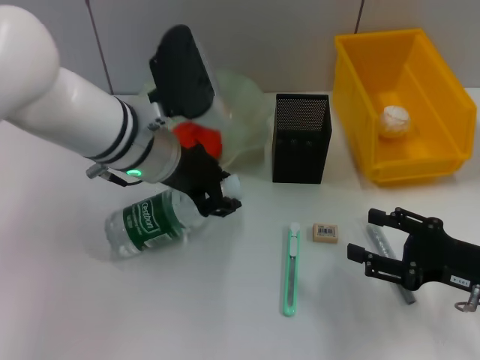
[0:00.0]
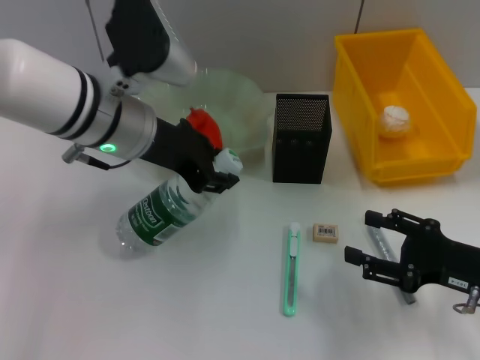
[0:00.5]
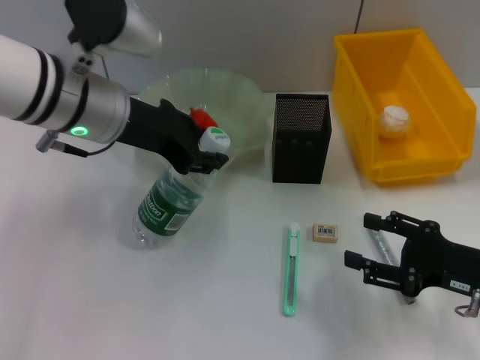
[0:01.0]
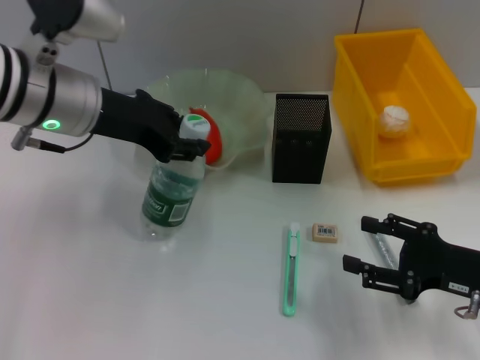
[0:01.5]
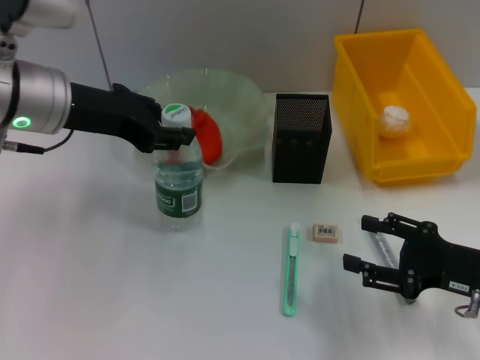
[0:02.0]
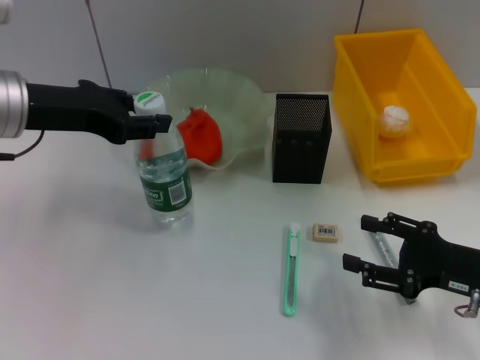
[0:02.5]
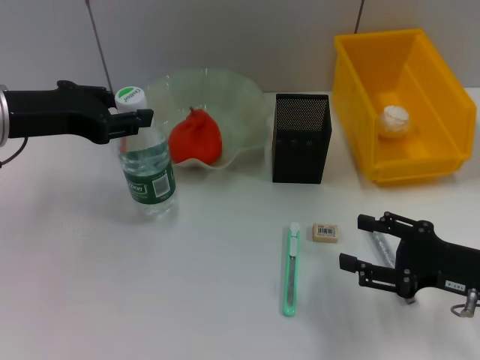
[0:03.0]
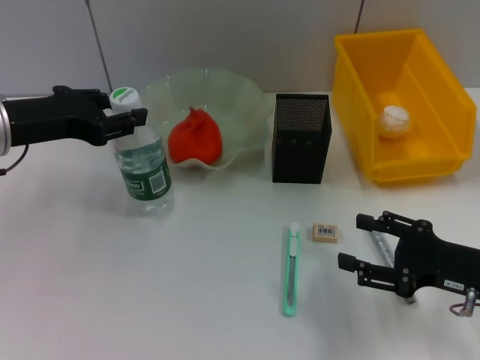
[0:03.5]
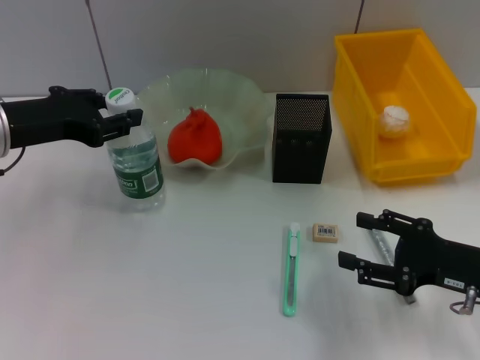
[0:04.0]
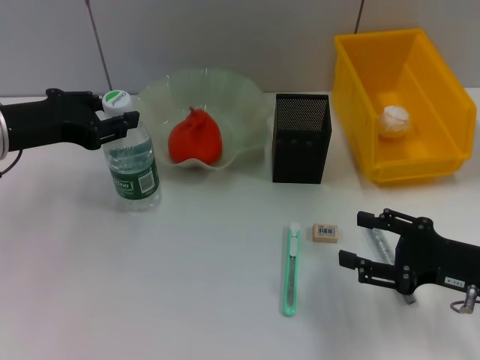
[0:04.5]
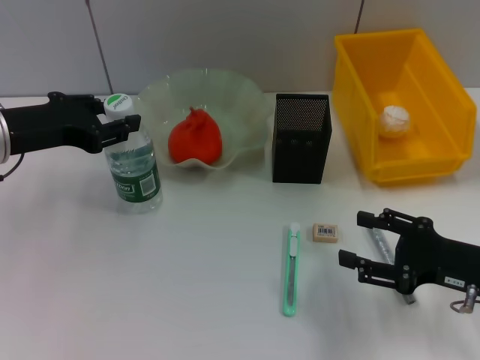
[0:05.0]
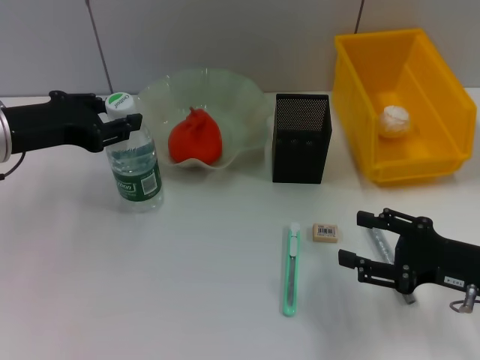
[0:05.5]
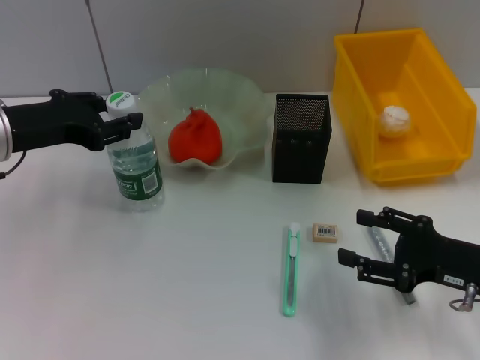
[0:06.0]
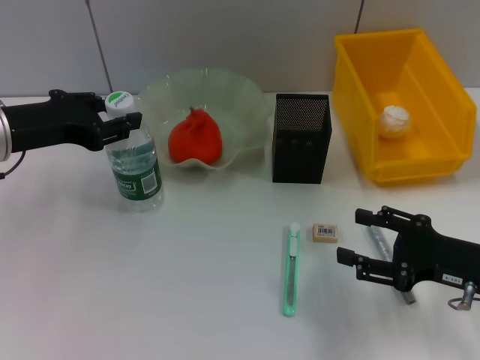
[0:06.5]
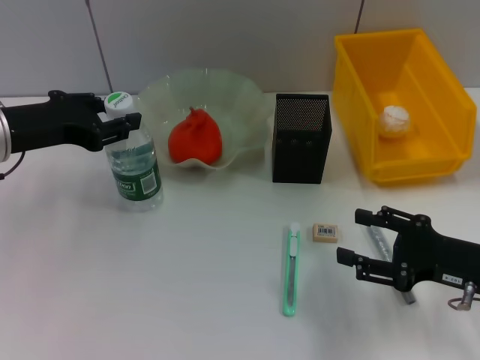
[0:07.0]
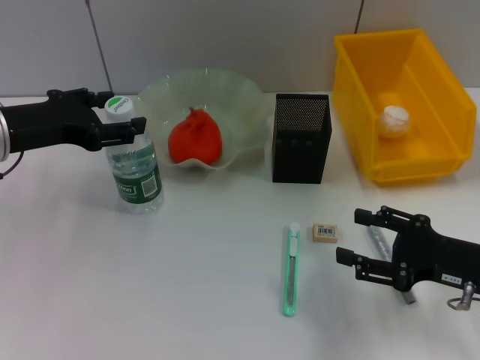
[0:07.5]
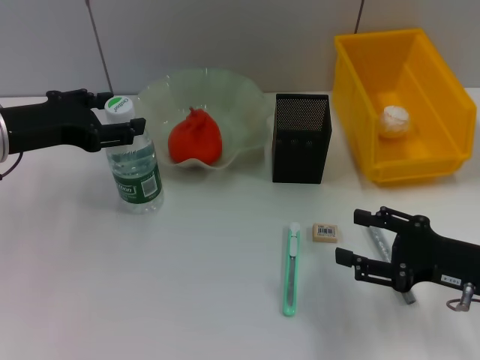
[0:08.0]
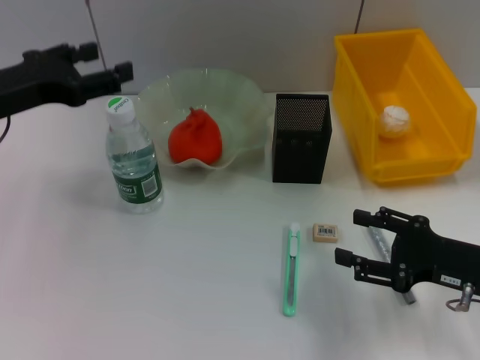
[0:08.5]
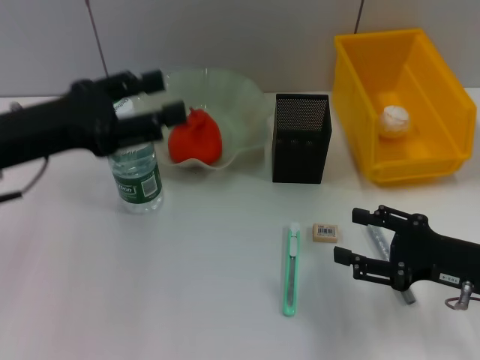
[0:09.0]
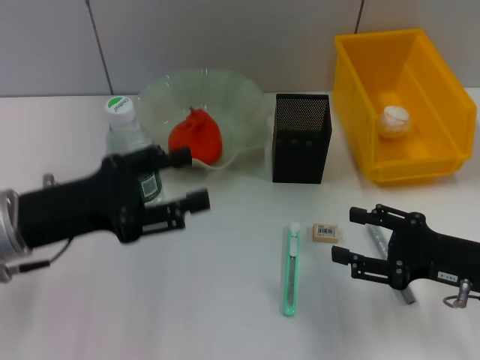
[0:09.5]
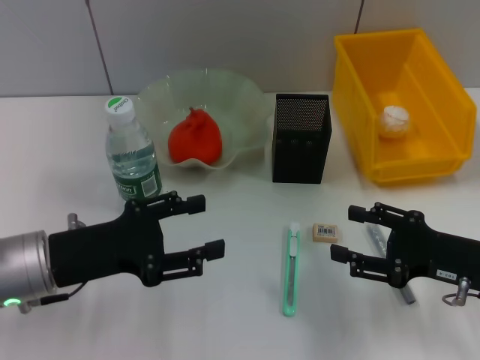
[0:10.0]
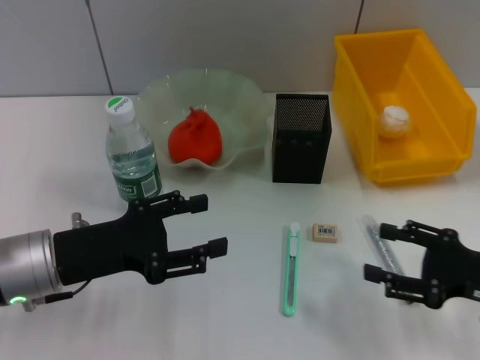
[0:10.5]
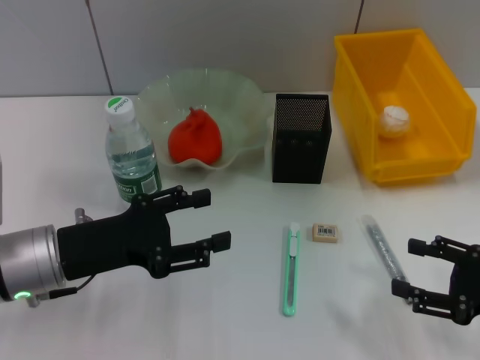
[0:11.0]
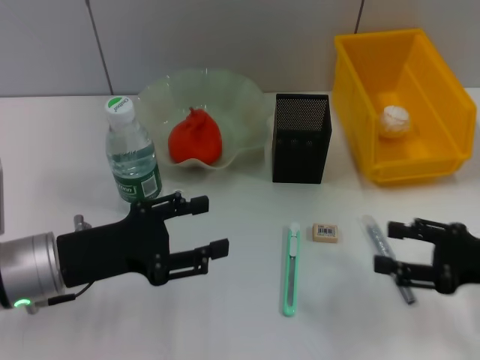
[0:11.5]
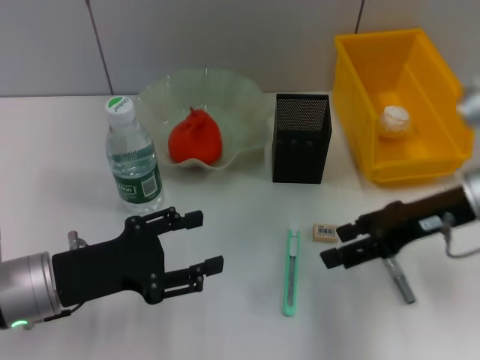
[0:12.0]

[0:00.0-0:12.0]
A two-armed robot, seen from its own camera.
Step, 0:00.0 to 0:07.5: Place the water bottle on the table with the left hand.
0:00.0 to 0:02.0: The left gripper is displaced to the left and upward by about 10 cm.
0:02.0 to 0:04.0: The left gripper heads to the left, covering about 5 cm.
0:04.0 to 0:06.0: Both grippers stay put.
0:06.0 to 0:08.0: The left gripper opens up.
0:08.0 to 0:10.0: The left gripper is displaced backward and downward by roughly 10 cm.
0:10.0 to 0:12.0: The right gripper moves upward and forward, roughly 10 cm.

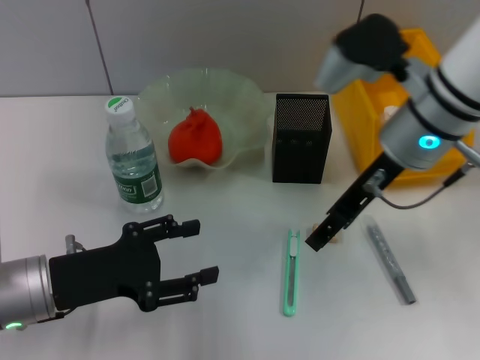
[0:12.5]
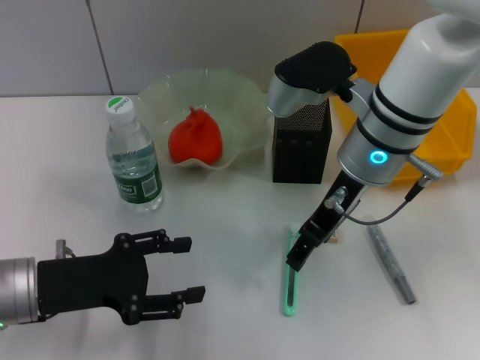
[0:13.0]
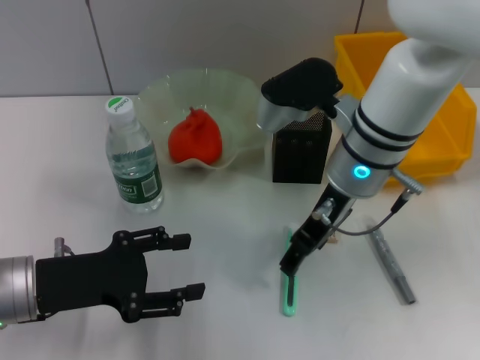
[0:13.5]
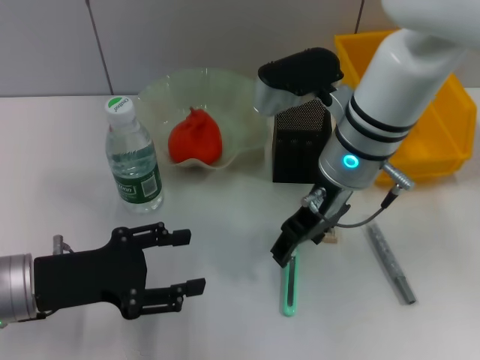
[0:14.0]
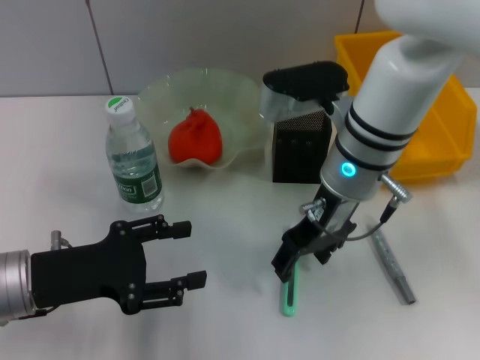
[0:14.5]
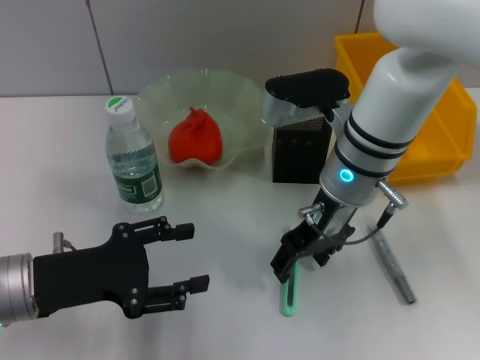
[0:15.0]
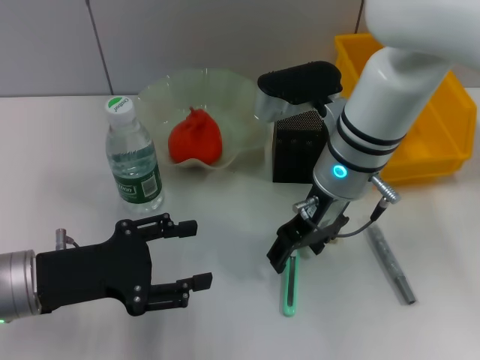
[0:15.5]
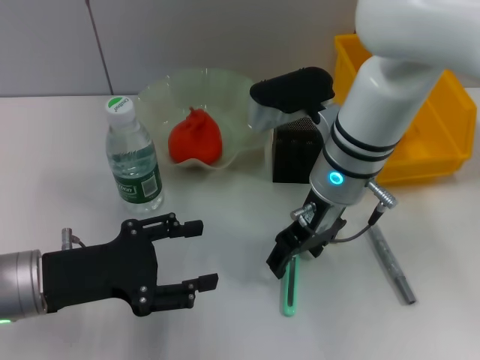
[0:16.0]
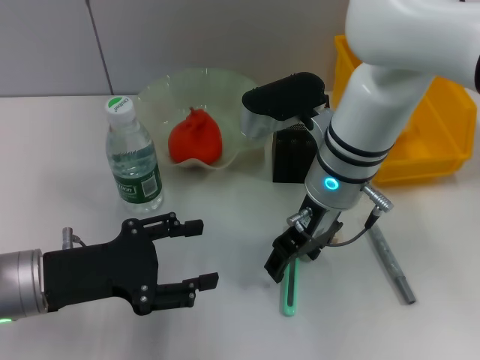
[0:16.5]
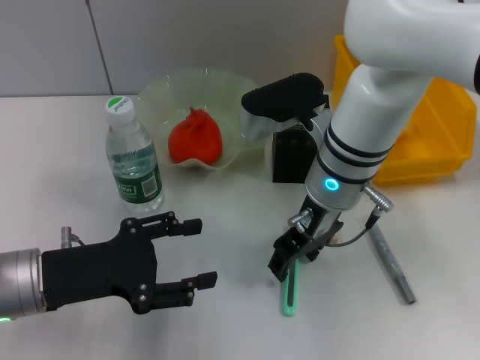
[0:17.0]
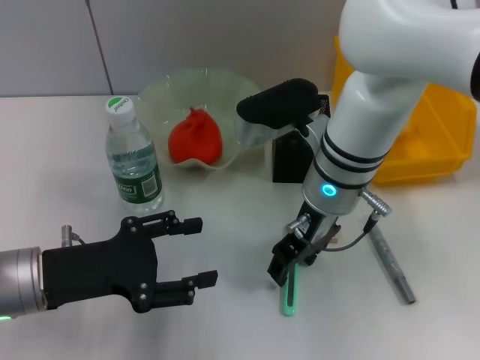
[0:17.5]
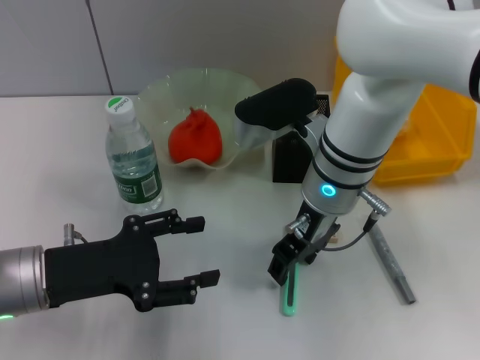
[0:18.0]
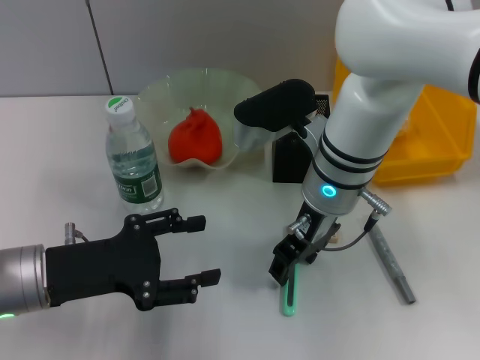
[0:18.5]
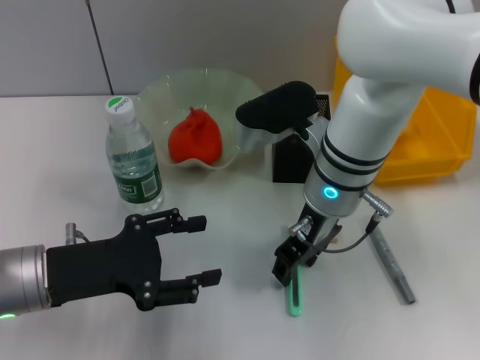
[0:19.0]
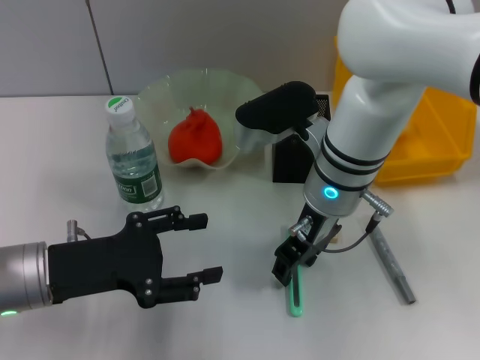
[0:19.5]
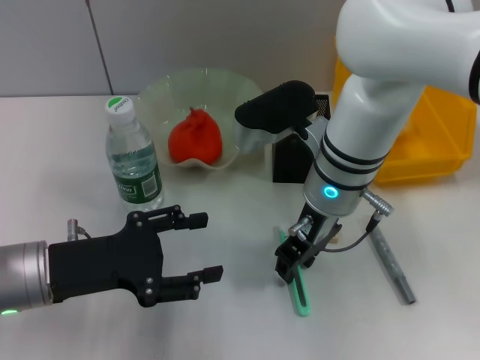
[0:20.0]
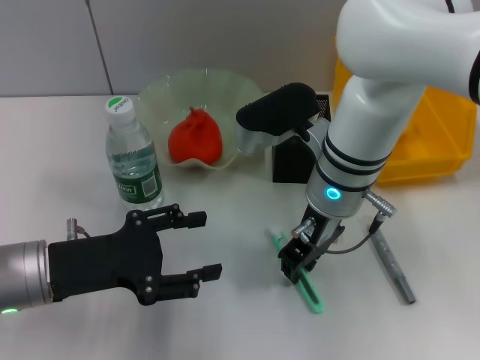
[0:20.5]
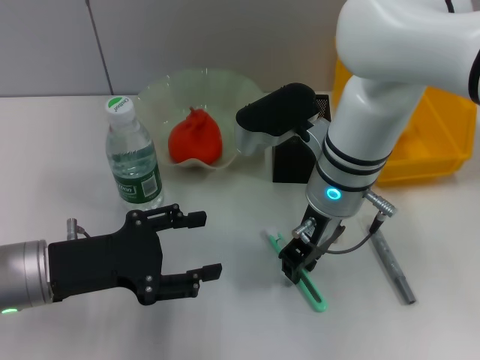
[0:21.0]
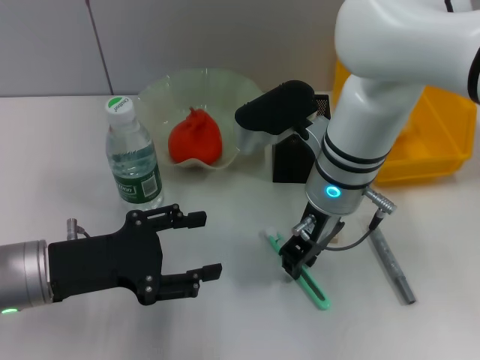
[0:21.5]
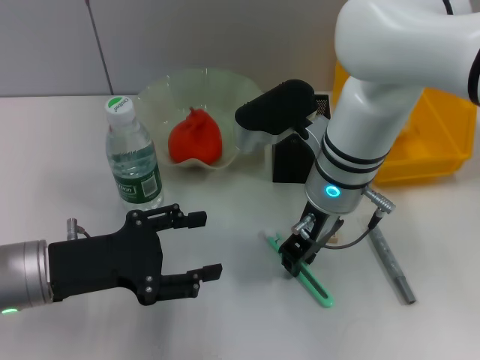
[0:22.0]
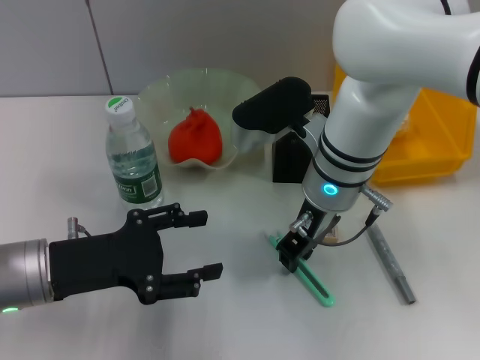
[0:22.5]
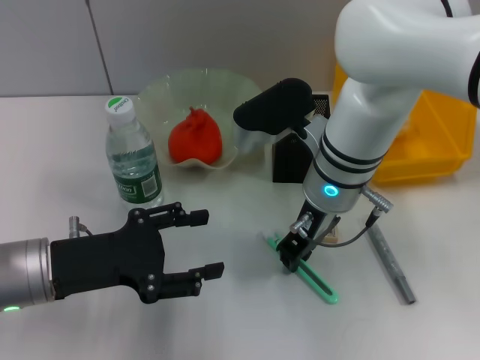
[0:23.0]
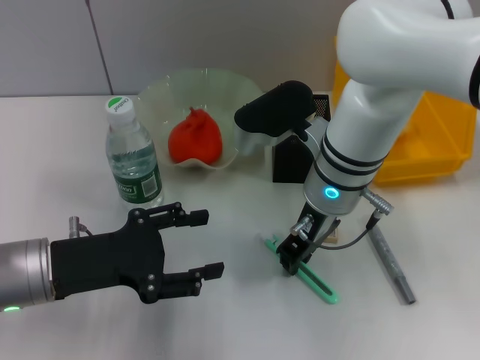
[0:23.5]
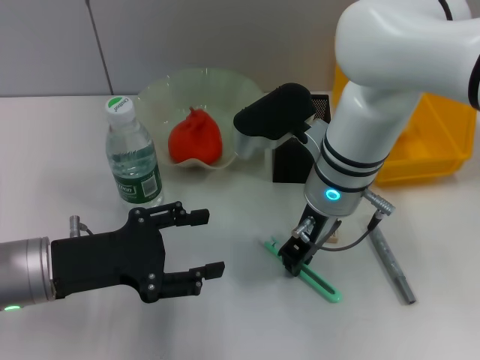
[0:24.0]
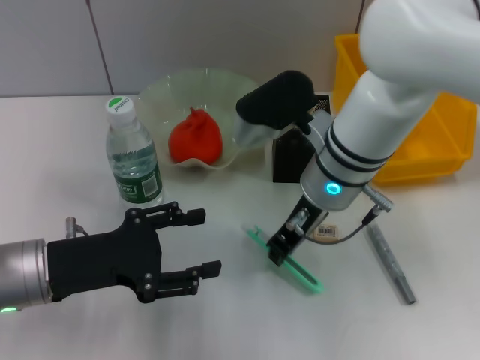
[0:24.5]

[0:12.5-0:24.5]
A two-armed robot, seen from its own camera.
Step, 0:12.5 to 0:23.0: Grab the blue utility knife with the right hand.
0:12.5 to 0:14.5: The right gripper moves to the left, approximately 5 cm.
0:14.5 to 0:16.5: The grippers move only a little.
0:16.5 to 0:18.5: Neither gripper changes place.
0:18.5 to 0:22.5: Both grippers stay about where they are.
0:22.5 to 0:24.5: The grippers make only small movements.

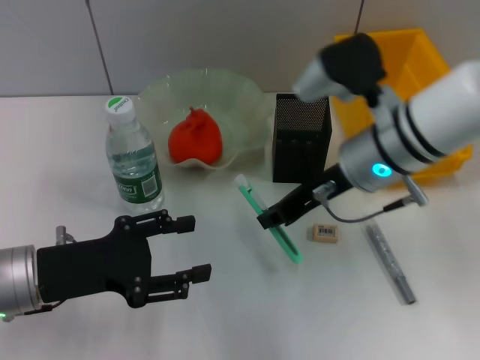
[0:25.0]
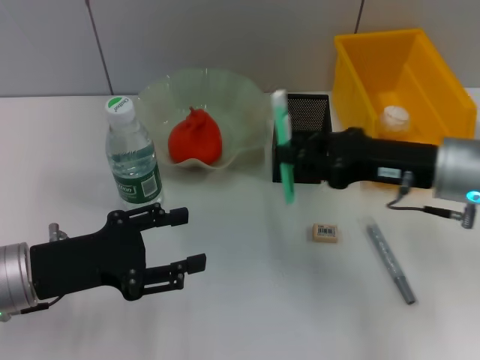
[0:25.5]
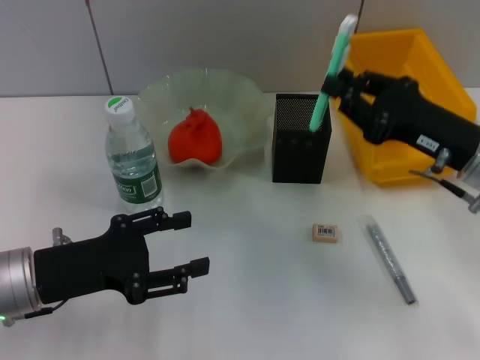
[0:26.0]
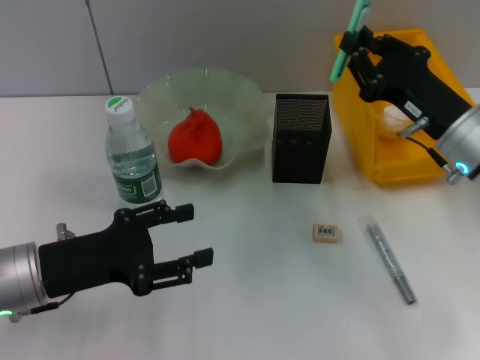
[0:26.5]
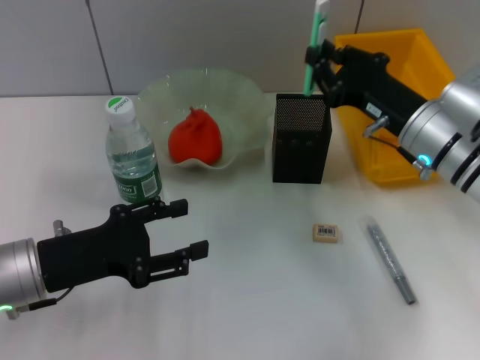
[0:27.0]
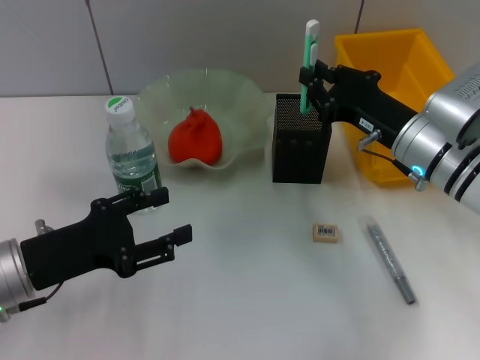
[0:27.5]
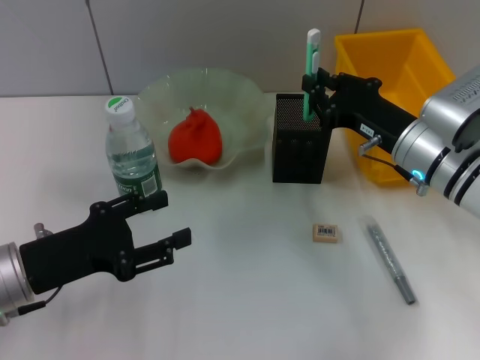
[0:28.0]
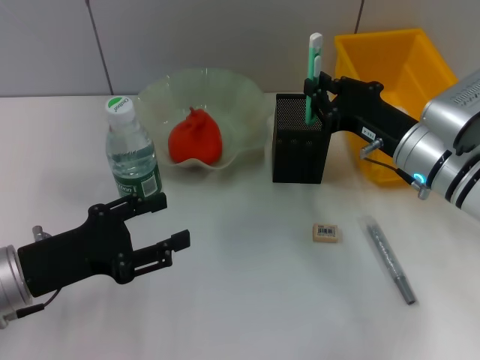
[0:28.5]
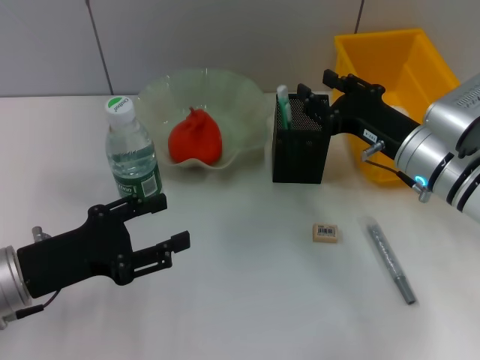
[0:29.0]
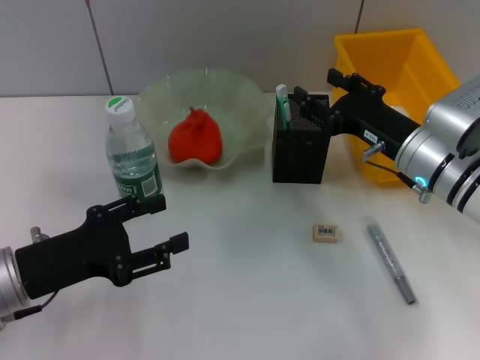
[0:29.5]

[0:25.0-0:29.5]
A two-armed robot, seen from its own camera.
Step, 0:25.0 to 0:29.0: Place the blue utility knife into the pen holder with the right hand.
0:25.0 to 0:27.0: The right gripper is displaced to the right and downward by some 10 cm.
0:27.0 to 0:29.5: The right gripper opens.
